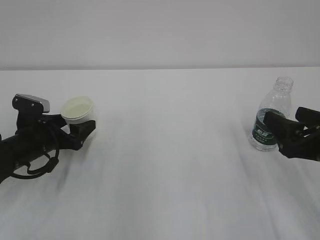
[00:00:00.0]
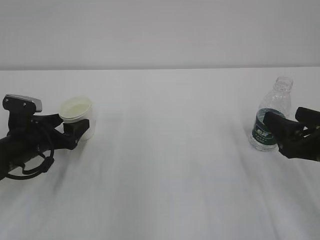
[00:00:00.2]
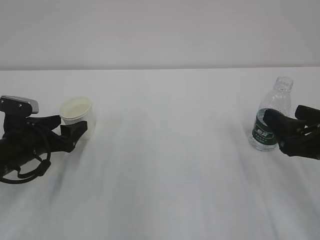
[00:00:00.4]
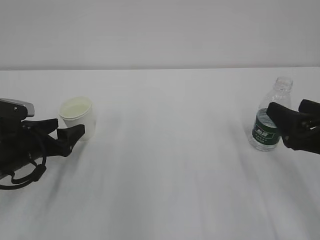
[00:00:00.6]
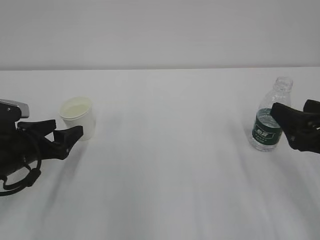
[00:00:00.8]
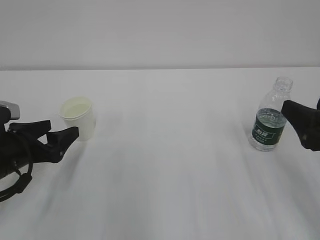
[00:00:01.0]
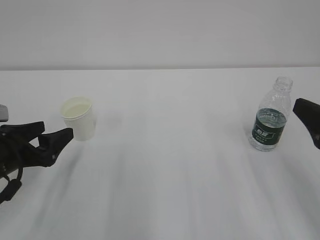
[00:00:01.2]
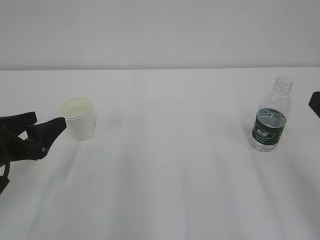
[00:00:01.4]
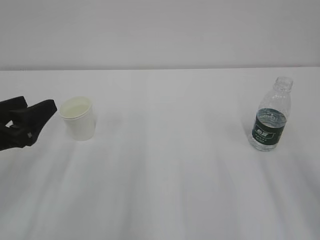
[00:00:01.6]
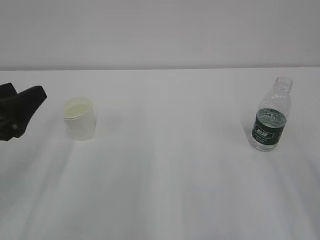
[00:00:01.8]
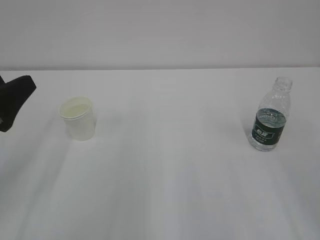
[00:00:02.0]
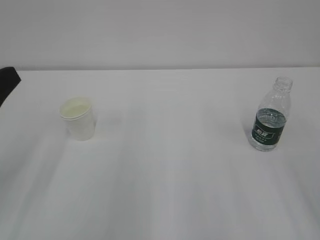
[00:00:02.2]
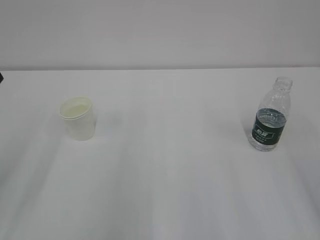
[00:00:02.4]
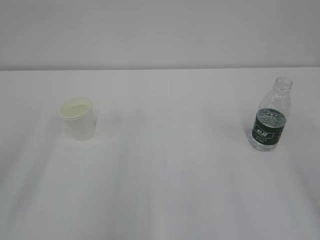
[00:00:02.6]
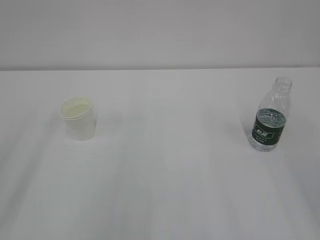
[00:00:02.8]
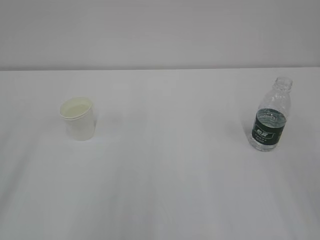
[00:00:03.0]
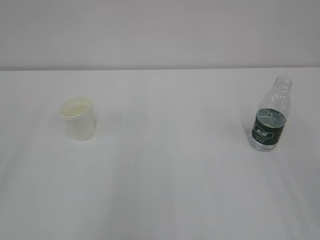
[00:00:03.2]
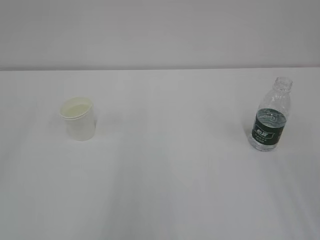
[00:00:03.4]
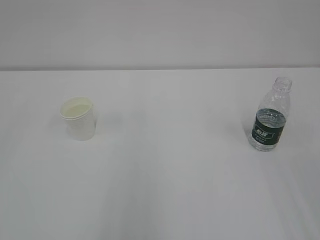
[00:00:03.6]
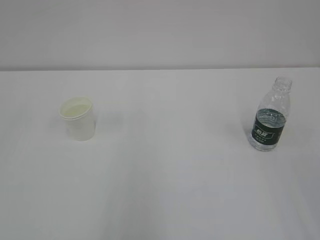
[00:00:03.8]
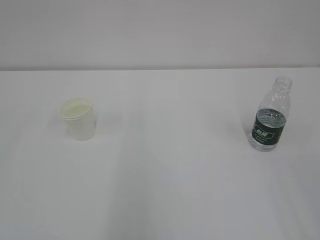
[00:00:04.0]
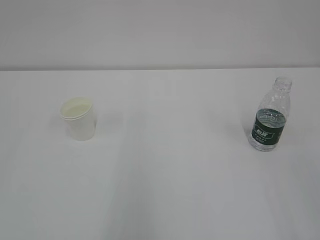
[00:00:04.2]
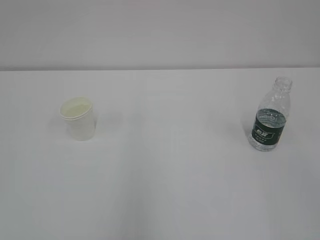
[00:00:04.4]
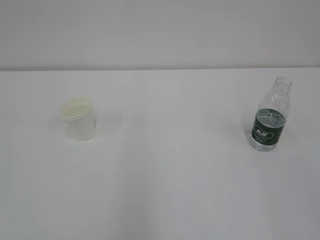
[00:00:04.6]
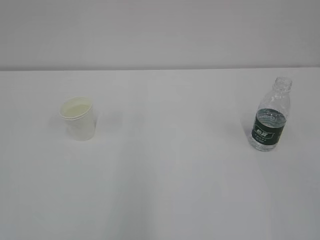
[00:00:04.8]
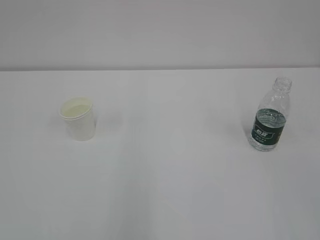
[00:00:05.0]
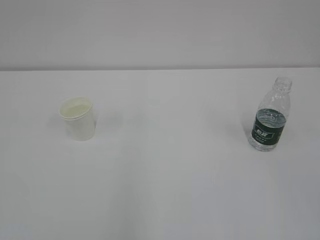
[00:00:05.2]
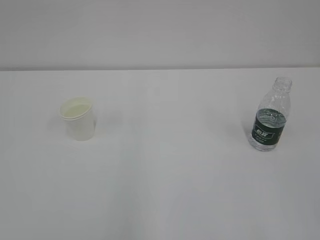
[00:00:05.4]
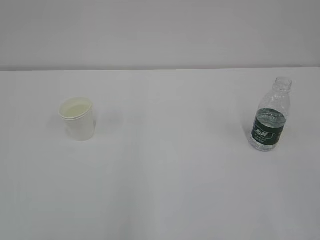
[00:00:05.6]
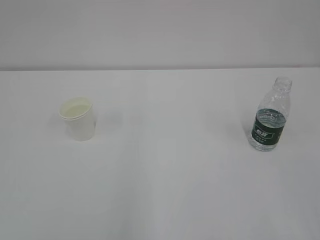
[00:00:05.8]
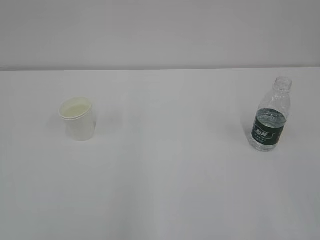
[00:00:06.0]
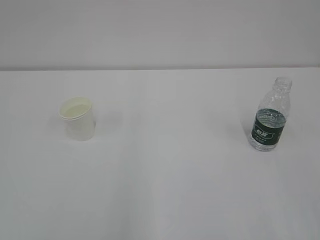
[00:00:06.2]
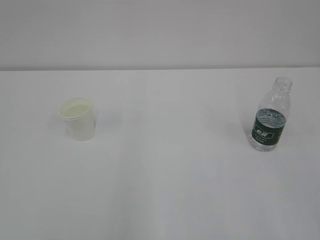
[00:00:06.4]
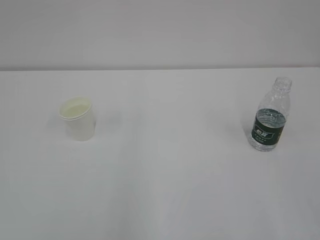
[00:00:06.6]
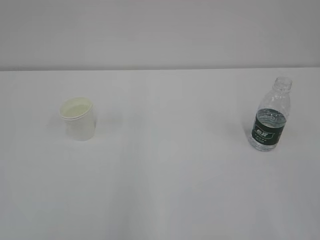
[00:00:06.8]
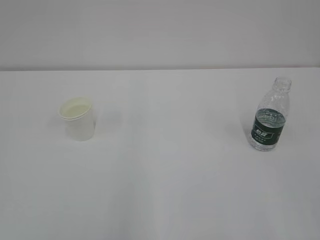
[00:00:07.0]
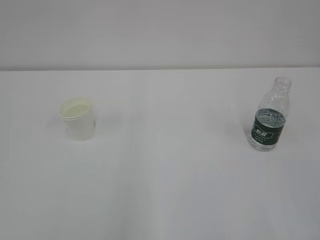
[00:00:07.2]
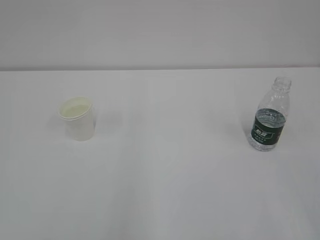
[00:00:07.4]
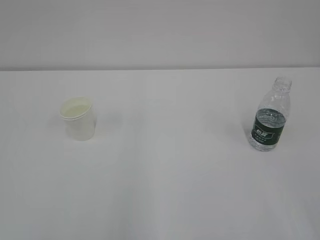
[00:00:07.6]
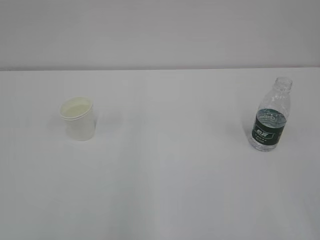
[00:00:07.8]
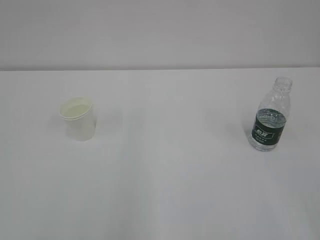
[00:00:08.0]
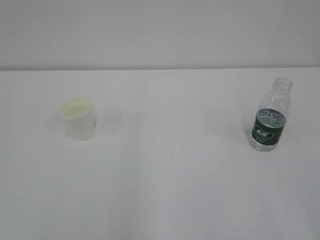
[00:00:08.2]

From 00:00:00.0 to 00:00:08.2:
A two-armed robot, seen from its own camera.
From 00:00:00.0 to 00:00:01.6: The right gripper goes roughly 10 cm upward and backward; the left gripper shifts approximately 15 cm backward and upward.
From 00:00:01.6 to 00:00:03.2: The left gripper heads upward and backward, covering roughly 20 cm.
